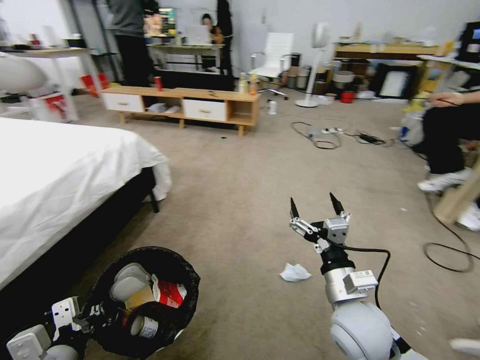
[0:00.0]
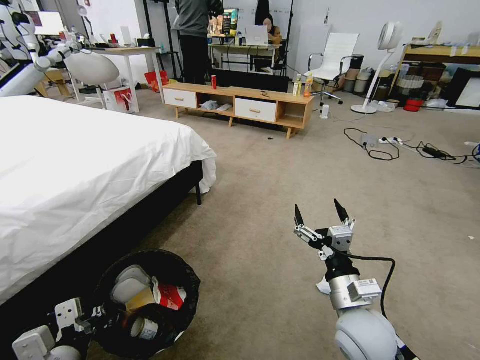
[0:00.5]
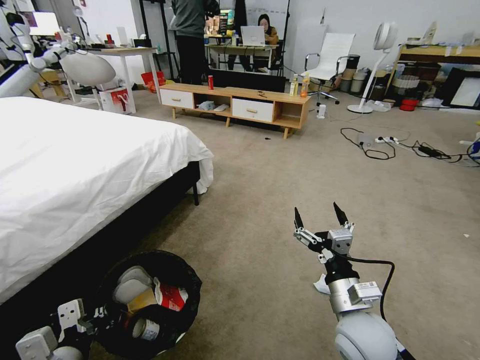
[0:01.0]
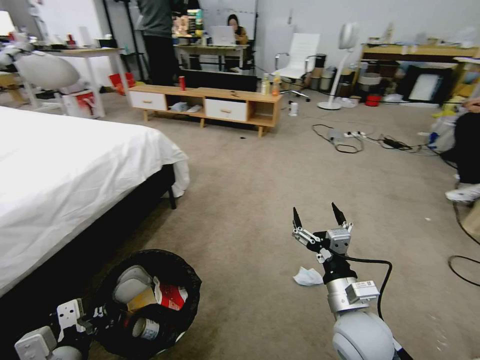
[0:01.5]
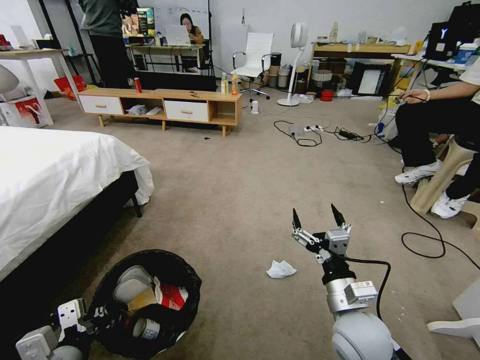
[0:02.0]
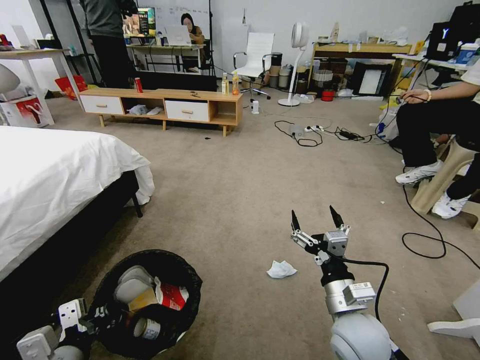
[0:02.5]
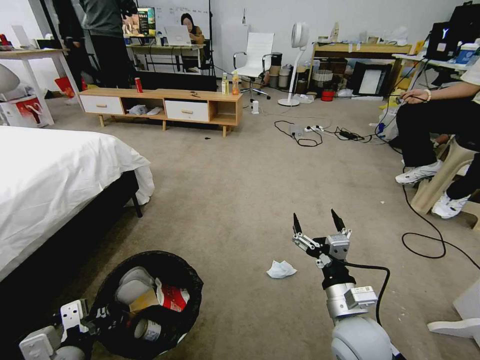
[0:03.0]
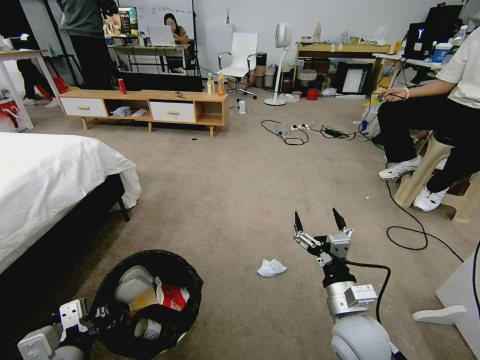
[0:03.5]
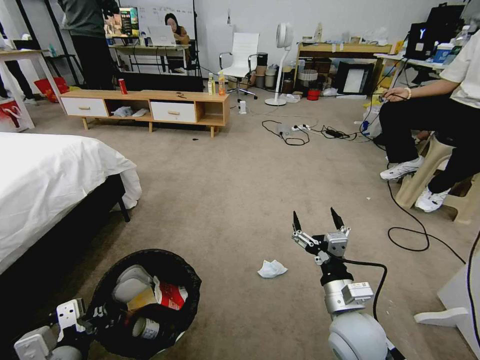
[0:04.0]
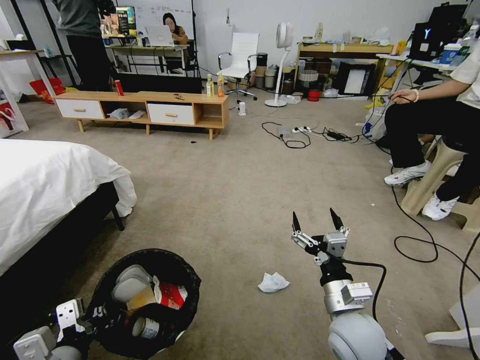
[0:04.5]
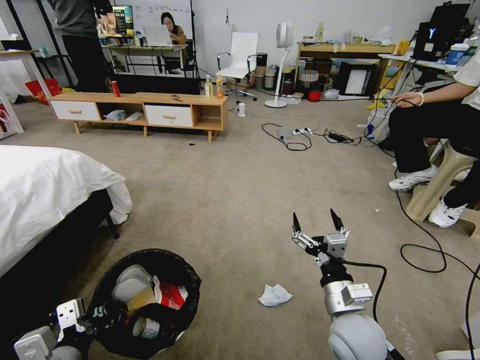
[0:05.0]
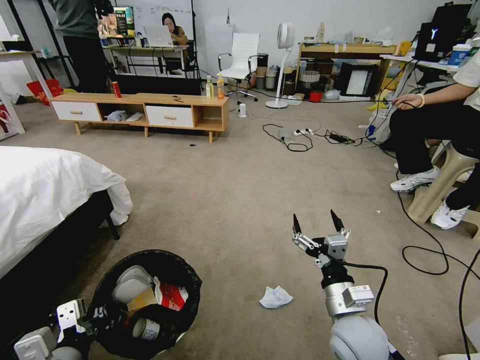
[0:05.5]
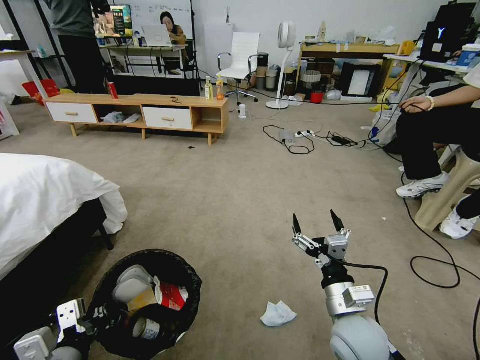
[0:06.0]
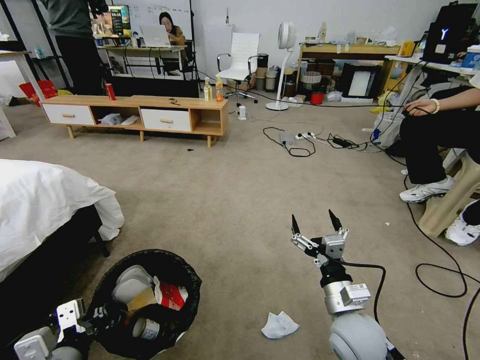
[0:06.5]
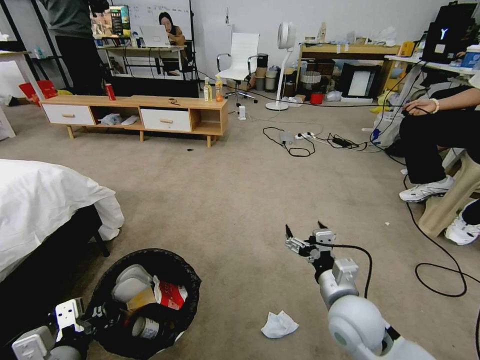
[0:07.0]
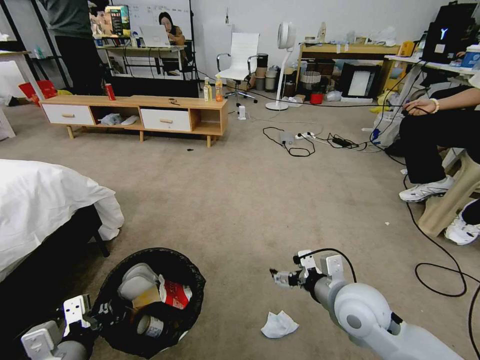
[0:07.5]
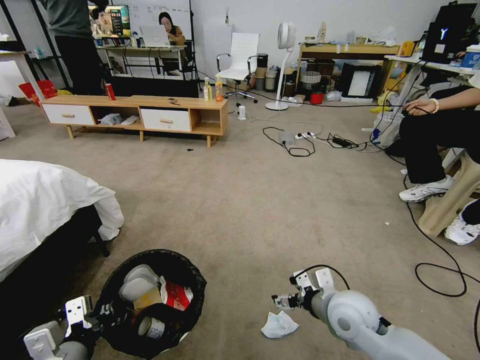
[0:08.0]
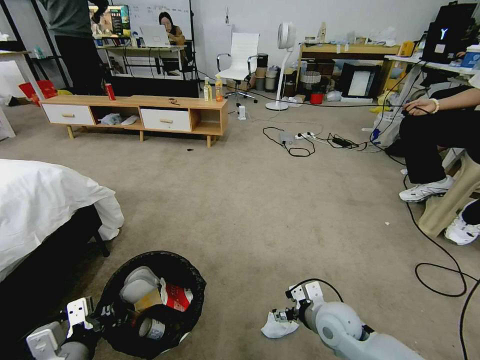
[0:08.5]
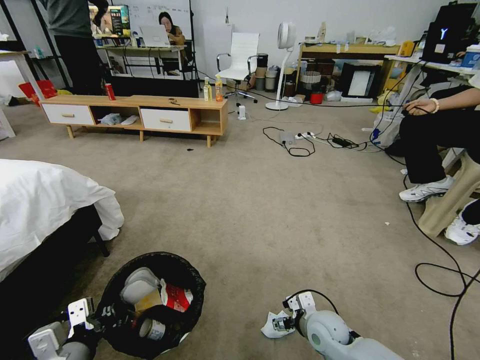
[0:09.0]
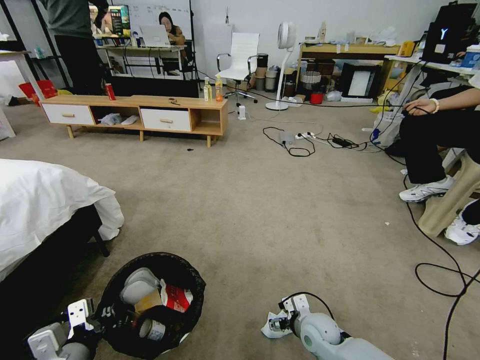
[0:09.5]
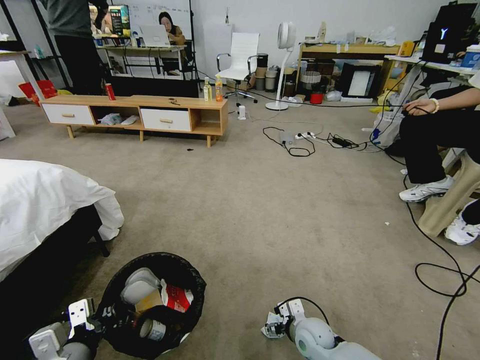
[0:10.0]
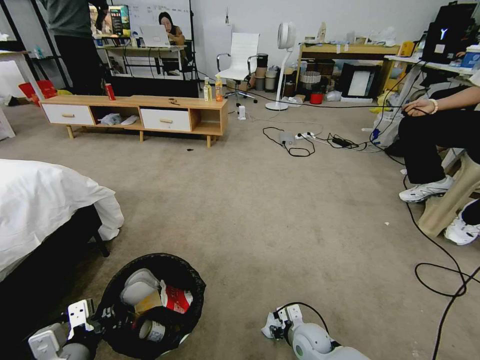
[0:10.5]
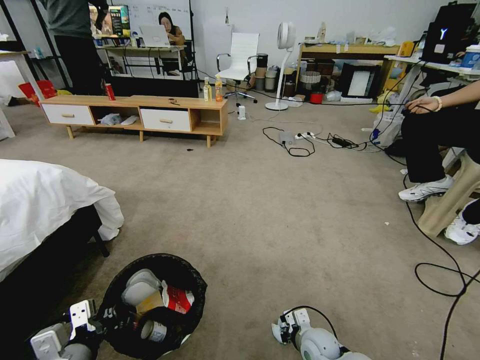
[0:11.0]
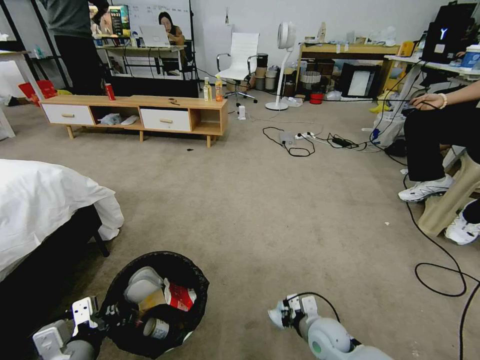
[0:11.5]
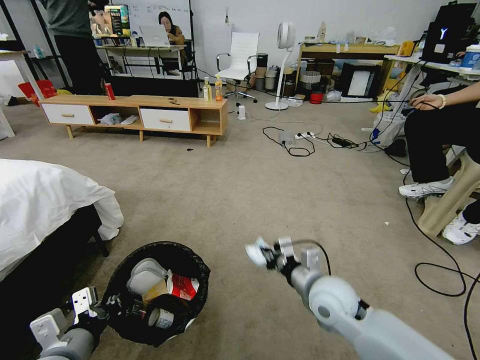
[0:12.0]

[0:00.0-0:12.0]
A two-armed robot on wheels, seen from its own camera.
Task of the whole recording: Pick up the trash bin and place the garbage on the floor into it.
0:06.0 to 0:08.0: The right gripper travels forward by approximately 5 cm.
0:08.0 to 0:10.0: The right gripper travels downward by about 20 cm.
0:10.0 to 0:12.0: The right gripper shifts roughly 20 cm upward, and closes.

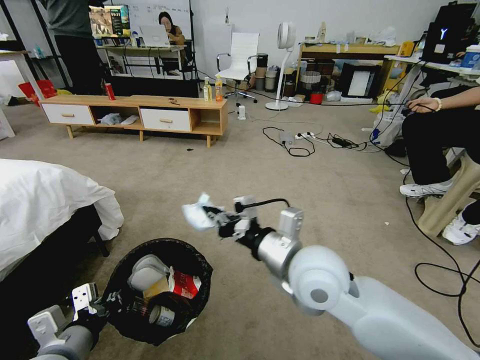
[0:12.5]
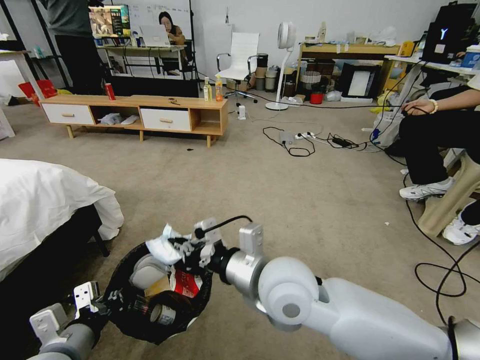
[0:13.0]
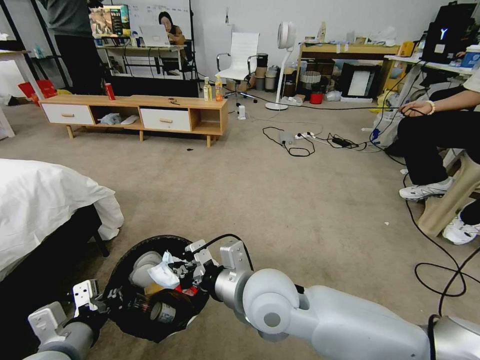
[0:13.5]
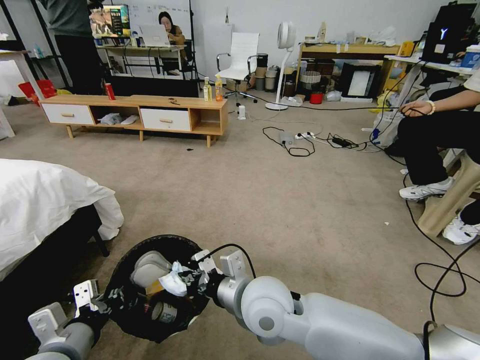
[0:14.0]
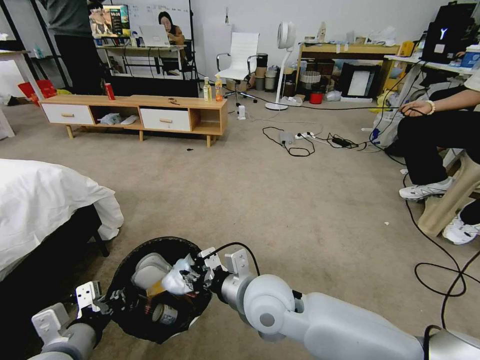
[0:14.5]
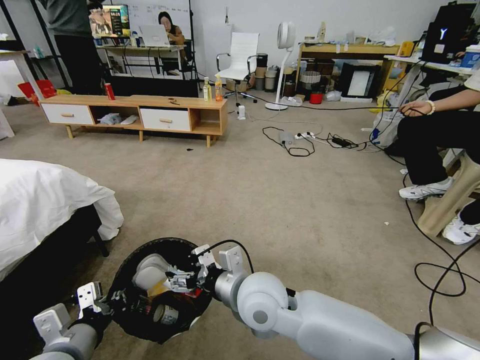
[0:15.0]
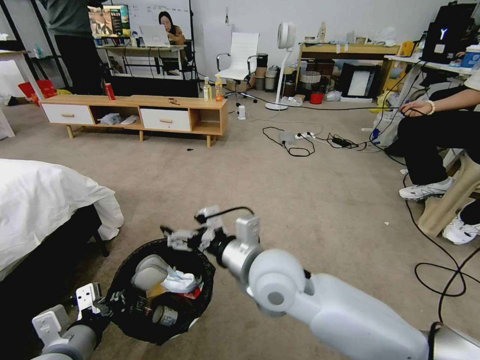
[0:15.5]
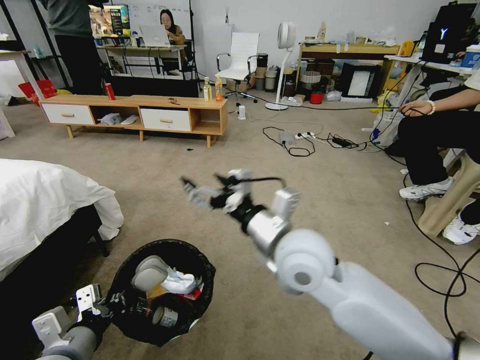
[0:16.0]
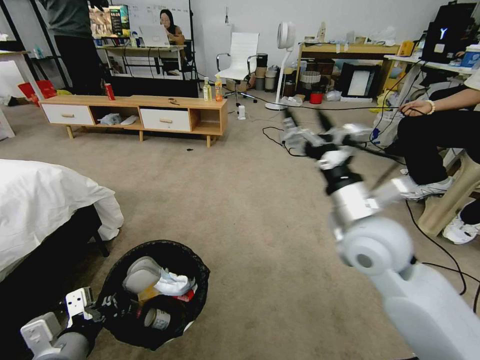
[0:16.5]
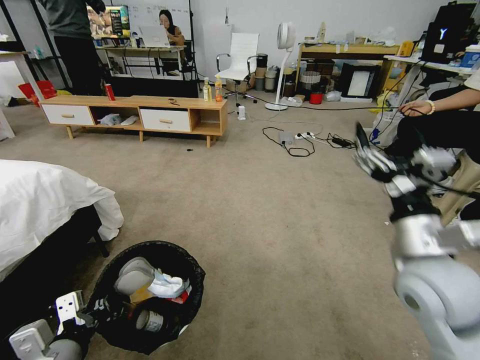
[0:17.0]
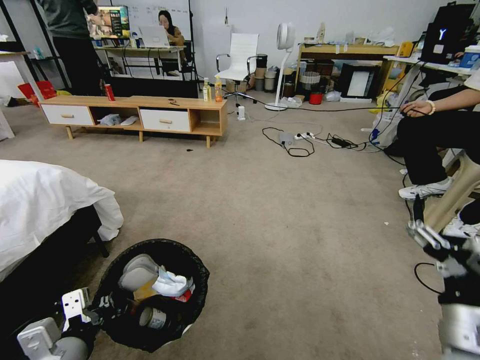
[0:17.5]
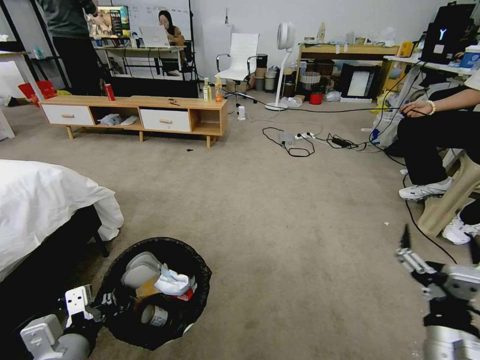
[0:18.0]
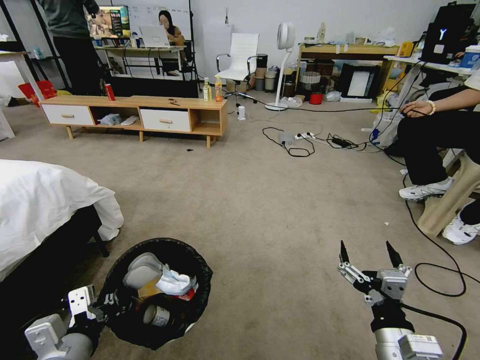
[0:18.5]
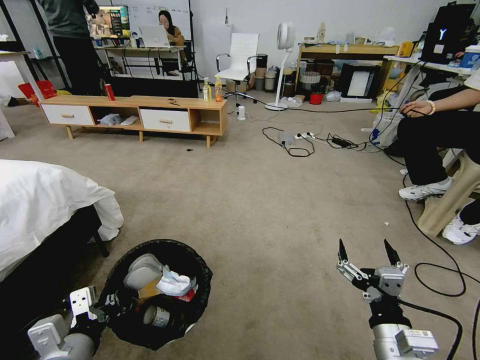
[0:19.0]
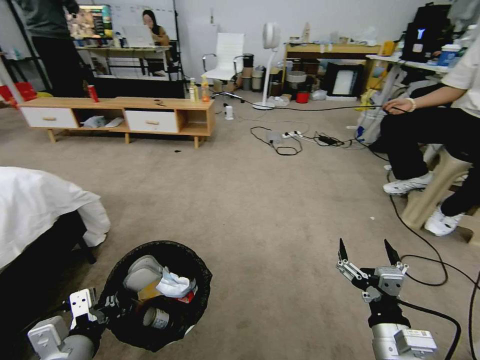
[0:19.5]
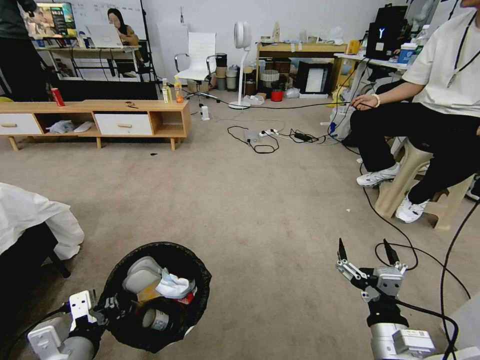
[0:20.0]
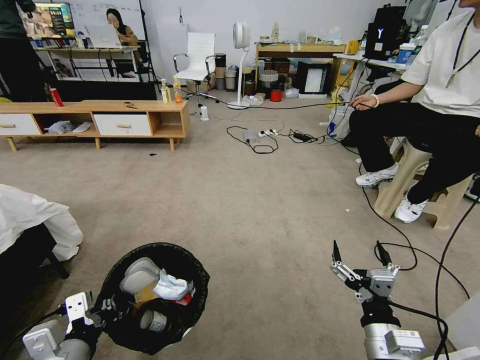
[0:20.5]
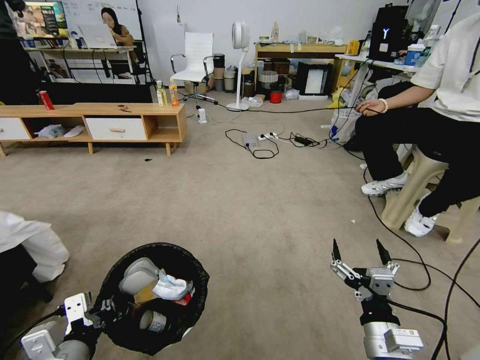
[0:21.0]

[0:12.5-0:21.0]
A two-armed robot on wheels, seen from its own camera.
Task of the whole recording: Pick up the trash bin and place the garbage on the floor into it.
0:12.5 to 0:14.5: The right gripper heads downward and to the left, covering approximately 10 cm.
0:14.5 to 0:16.5: The right gripper shifts about 20 cm to the right and upward, and opens.
0:16.5 to 0:19.0: The right gripper is displaced downward and backward by approximately 25 cm.
